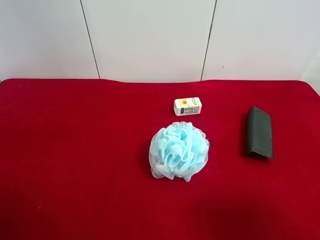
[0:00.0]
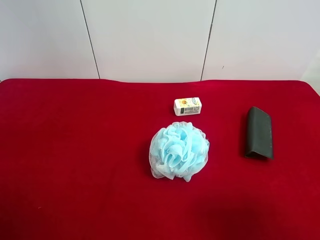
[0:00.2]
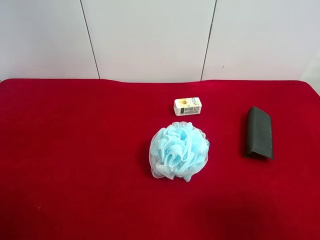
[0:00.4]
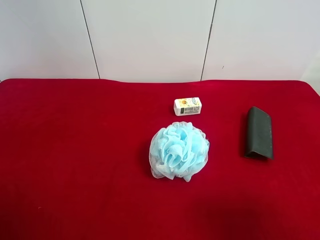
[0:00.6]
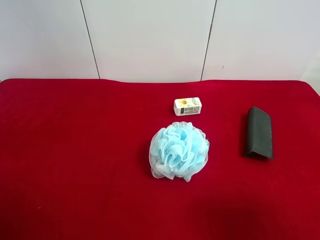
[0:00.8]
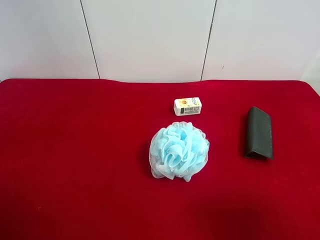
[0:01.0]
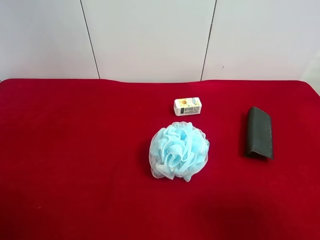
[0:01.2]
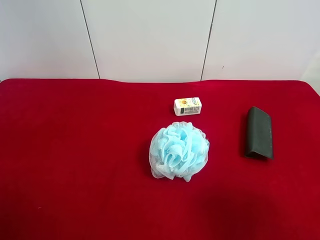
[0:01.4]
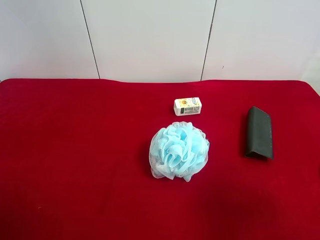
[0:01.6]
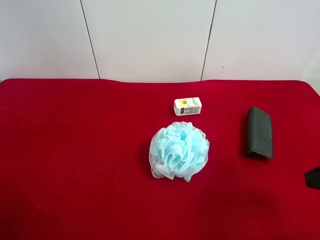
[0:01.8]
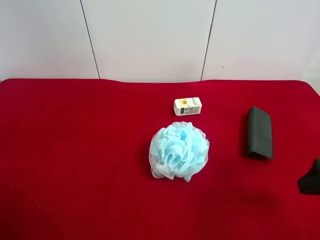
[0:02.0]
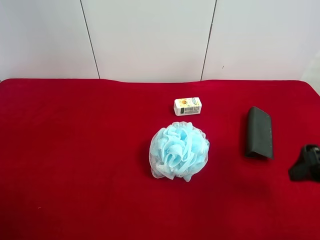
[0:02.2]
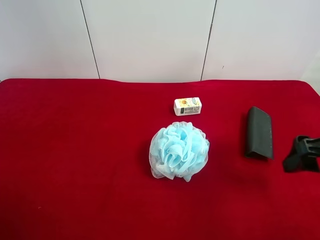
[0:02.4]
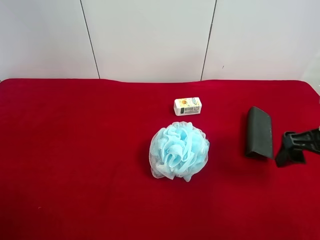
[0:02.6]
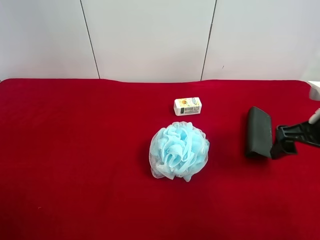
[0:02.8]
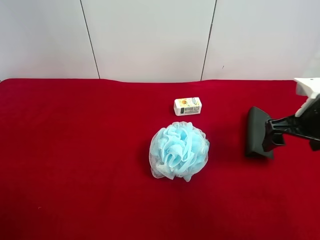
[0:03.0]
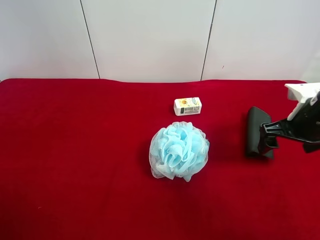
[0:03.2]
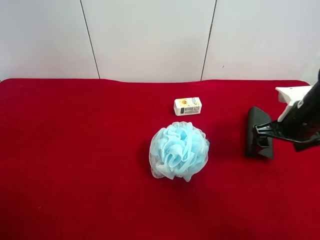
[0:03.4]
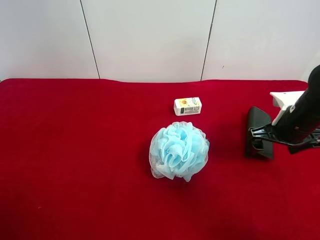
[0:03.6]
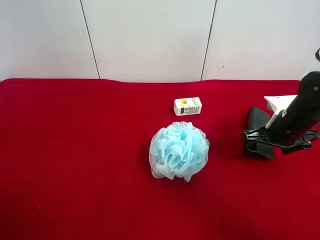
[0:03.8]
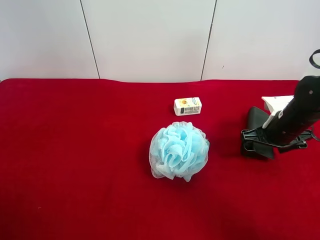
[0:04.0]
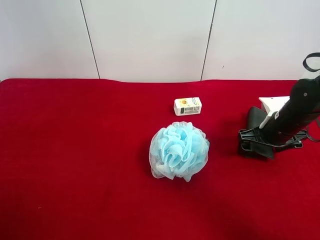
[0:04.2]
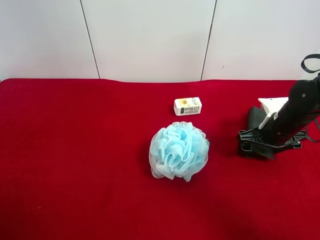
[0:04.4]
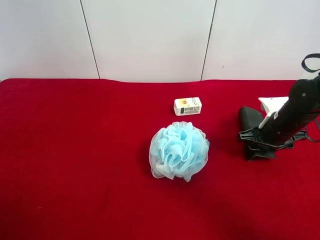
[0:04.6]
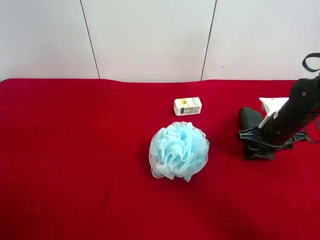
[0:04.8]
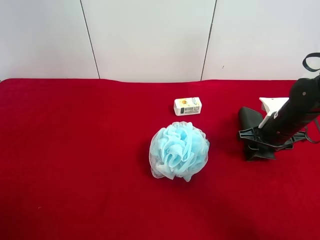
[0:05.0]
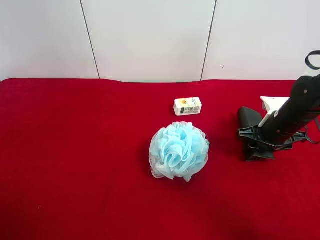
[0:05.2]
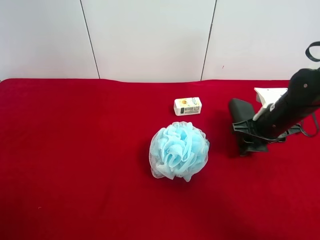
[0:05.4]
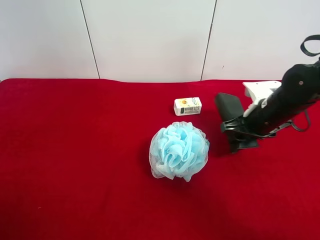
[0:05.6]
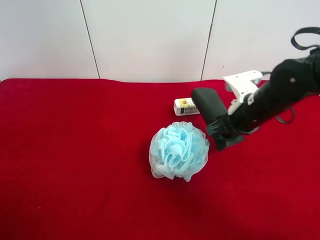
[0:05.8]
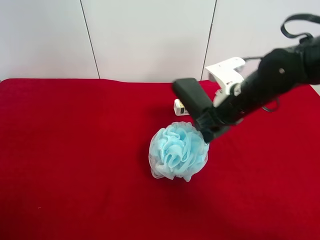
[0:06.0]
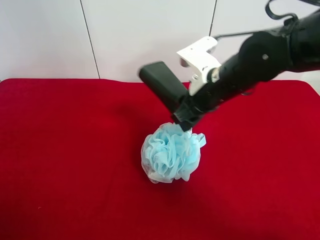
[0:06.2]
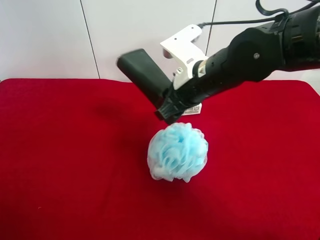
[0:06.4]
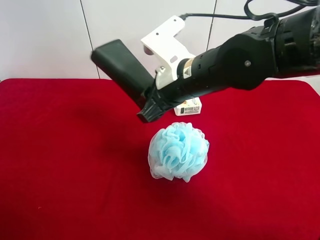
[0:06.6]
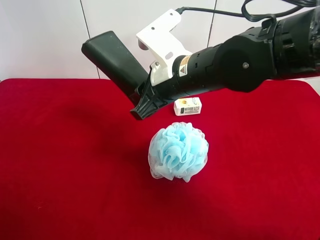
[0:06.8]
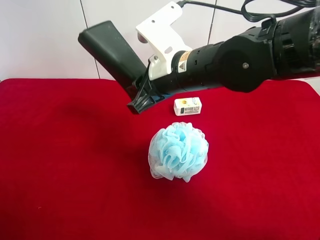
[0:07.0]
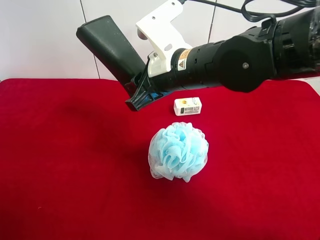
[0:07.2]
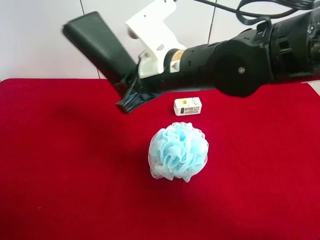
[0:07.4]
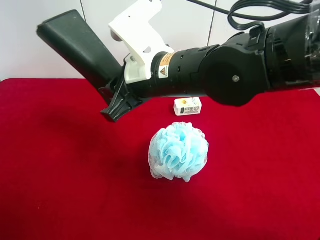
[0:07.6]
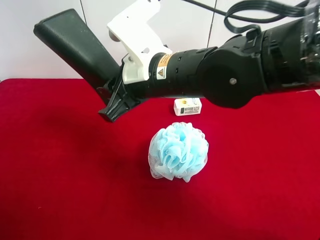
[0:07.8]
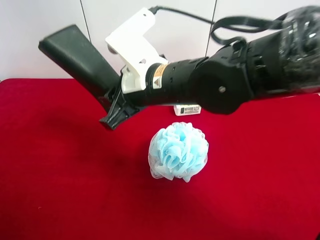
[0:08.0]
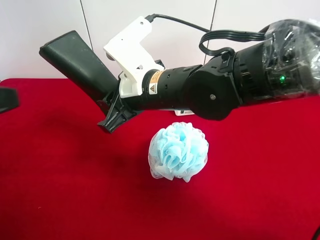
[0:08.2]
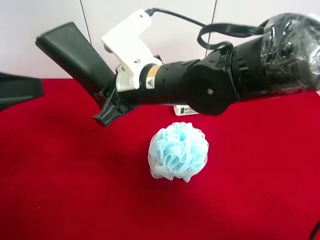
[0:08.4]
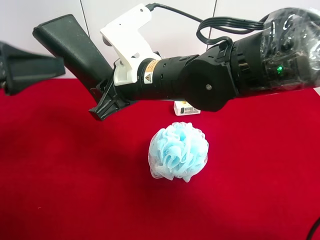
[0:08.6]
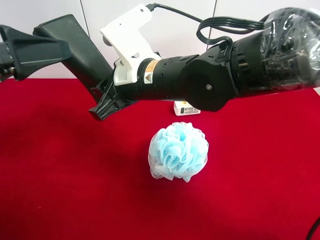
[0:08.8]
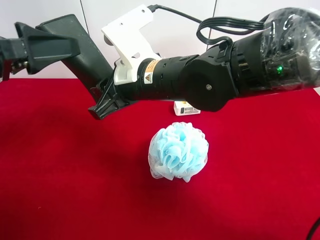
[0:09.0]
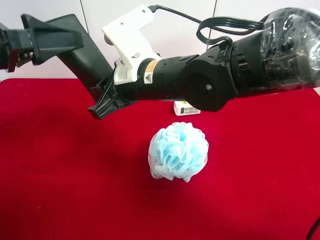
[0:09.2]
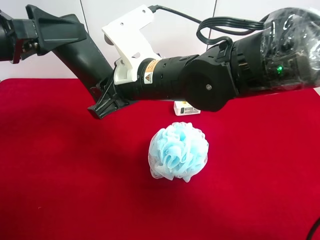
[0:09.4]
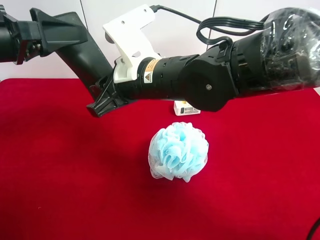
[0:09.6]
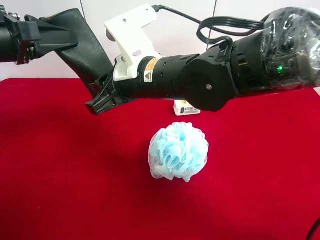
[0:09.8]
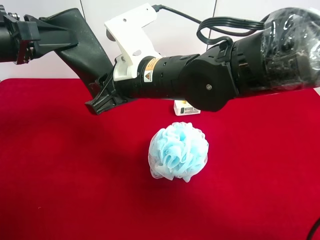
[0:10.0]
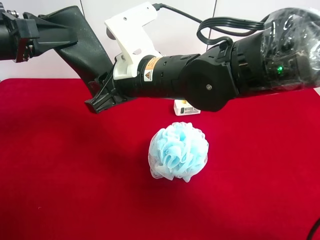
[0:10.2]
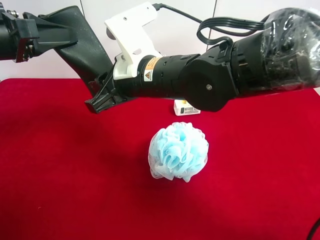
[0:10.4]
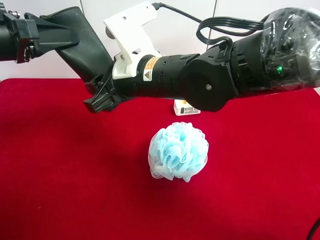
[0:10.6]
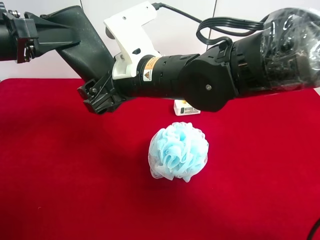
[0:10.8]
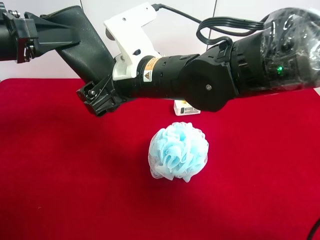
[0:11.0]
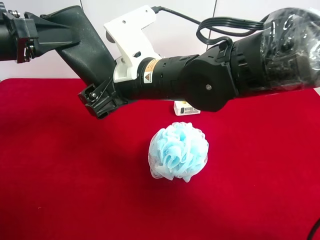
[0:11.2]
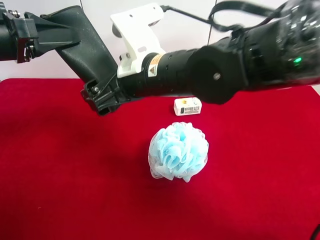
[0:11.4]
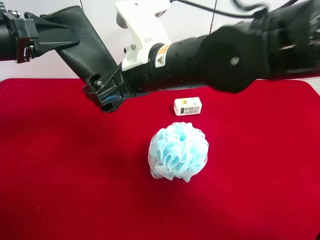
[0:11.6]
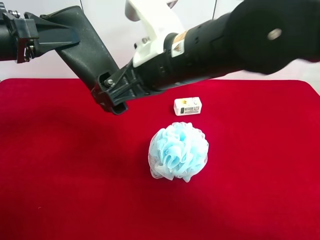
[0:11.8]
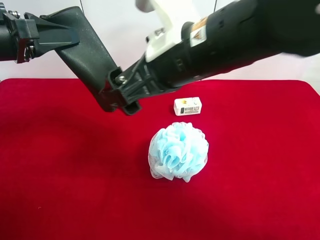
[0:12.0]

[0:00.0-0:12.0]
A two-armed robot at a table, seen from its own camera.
Task of the whole recording: use the right gripper to pick up the item and transfer it from the right gripper to the left gripper.
Step, 0:00.0 to 0:04.6: Use the right gripper to grab the eyeglass case on the right side of the table.
Step, 0:04.8 to 0:10.8: Pass the eyeglass case to the left gripper.
0:01.6 to 0:03.0: The right gripper moves forward, roughly 15 cm.
0:03.0 to 0:04.4: The right gripper travels downward and forward by about 10 cm.
0:04.4 to 0:06.0: The right gripper moves to the left and upward, approximately 15 cm, and closes its fingers.
0:06.0 to 0:07.6: The right gripper heads to the left and upward, covering approximately 15 cm.
0:07.6 to 0:09.0: The left gripper moves forward, approximately 20 cm.
0:09.0 to 0:10.4: The left gripper closes its fingers.
0:10.4 to 0:12.0: The right gripper shifts roughly 10 cm upward, to the right and backward, and opens up.

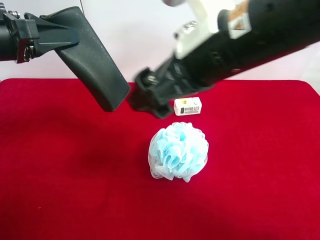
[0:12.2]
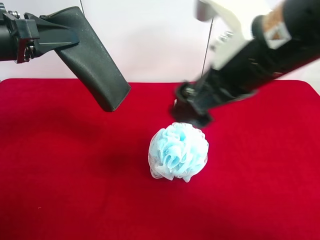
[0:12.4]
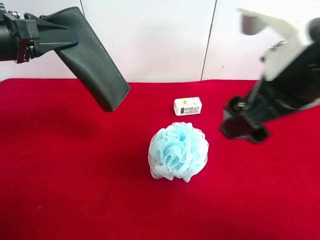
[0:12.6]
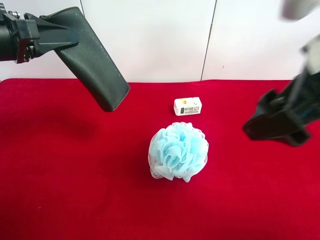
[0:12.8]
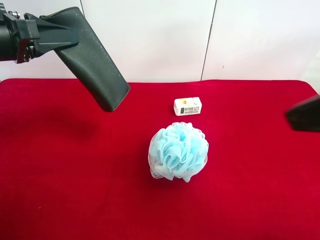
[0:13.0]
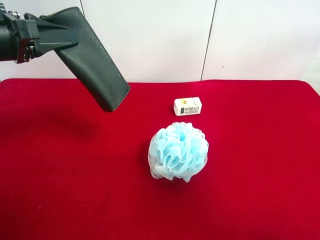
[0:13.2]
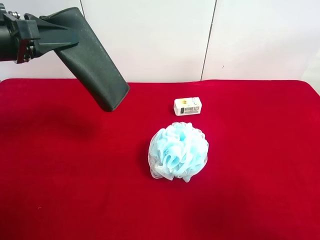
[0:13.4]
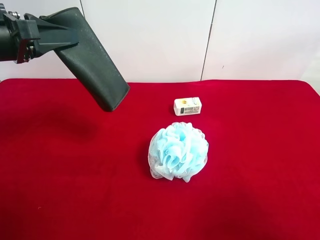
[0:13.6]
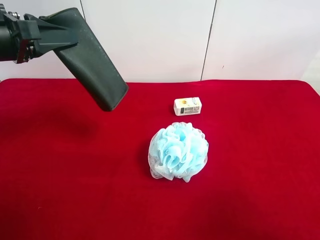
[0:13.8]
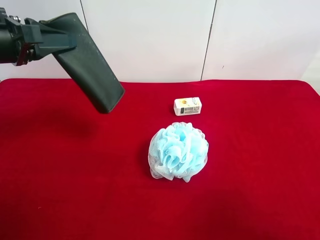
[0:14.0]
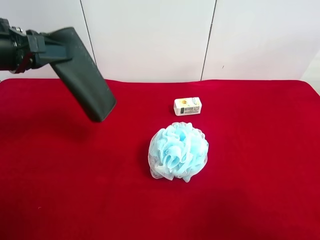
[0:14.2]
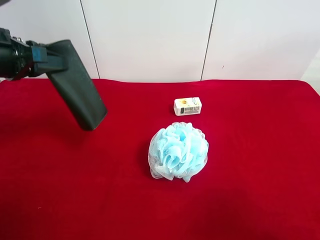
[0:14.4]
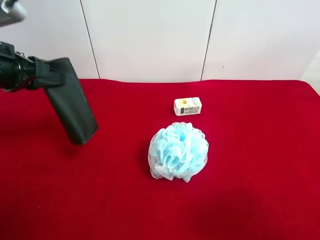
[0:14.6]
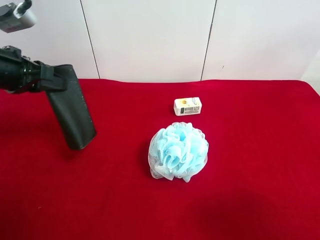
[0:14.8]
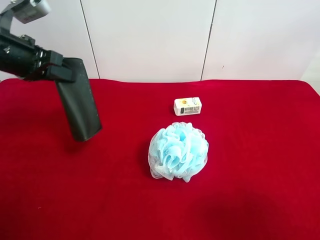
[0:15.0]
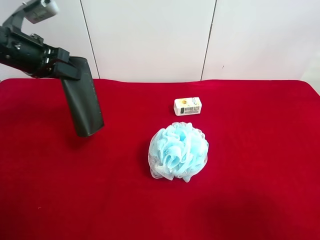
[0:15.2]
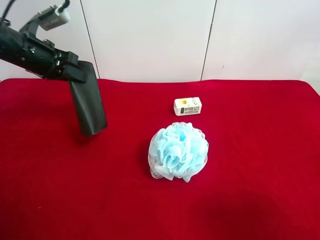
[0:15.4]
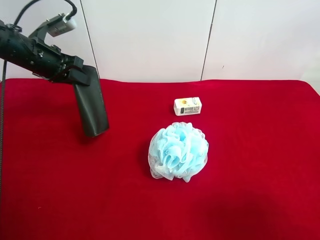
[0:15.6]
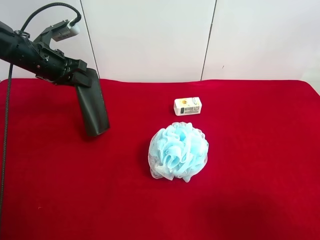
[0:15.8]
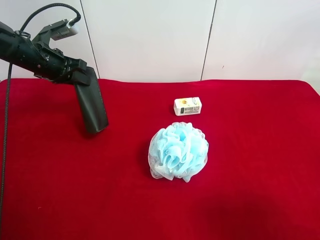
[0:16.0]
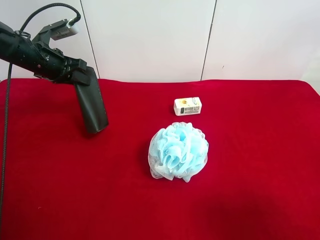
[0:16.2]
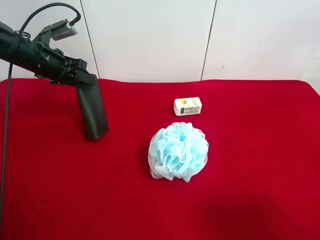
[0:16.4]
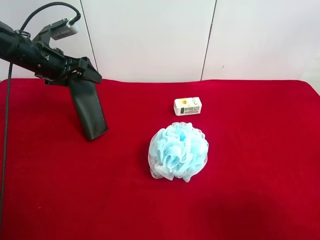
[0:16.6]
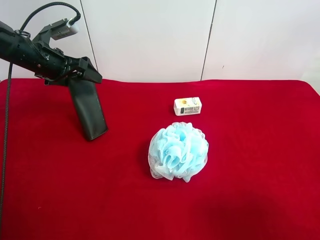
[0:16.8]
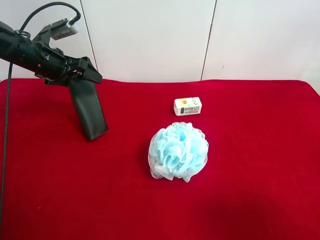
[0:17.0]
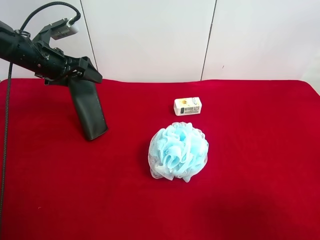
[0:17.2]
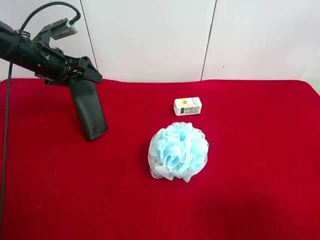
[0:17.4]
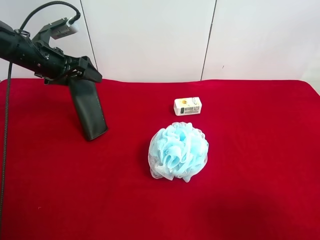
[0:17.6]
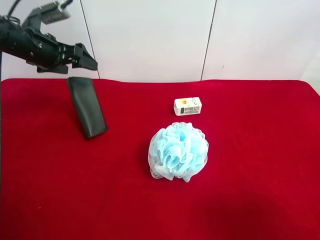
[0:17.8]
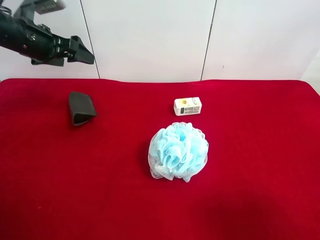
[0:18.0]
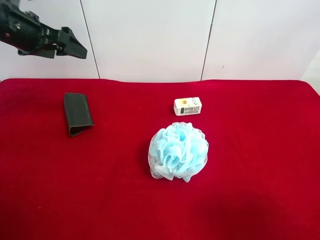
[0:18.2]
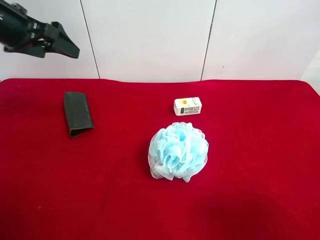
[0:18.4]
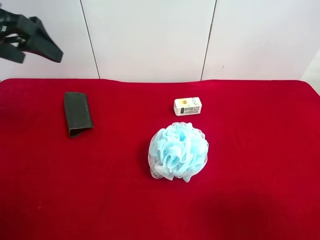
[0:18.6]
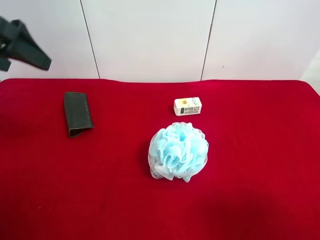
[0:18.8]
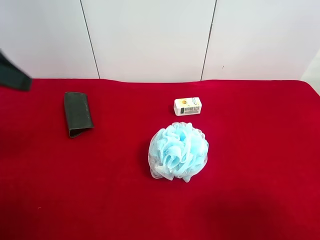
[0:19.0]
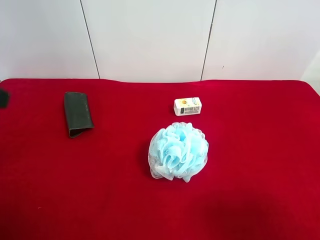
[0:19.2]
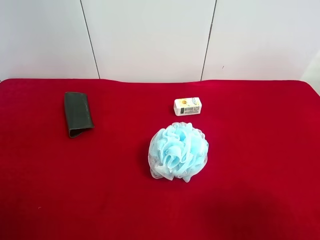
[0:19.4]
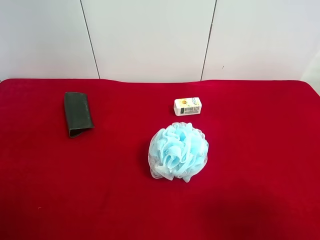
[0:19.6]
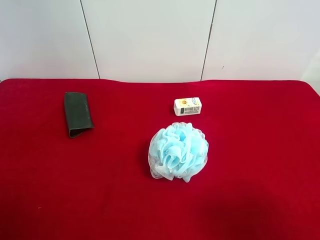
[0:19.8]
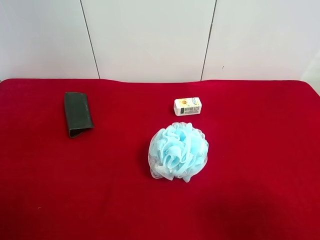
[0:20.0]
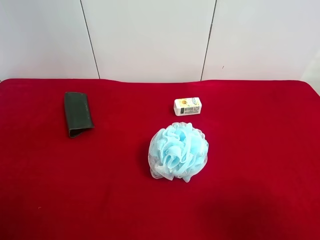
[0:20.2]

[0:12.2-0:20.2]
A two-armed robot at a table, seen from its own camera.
Task of the whole recording: use the right gripper to pick up the item and transfer it from the right gripper to the left gripper.
Step, 0:12.2 to 0:18.0: The left gripper places eyeglass case on the left side of the table.
0:12.2 to 0:13.8: The right gripper heads to the right and backward, covering roughly 30 cm.
0:13.8 to 0:15.4: The left gripper heads forward and downward, covering roughly 15 cm.
0:15.4 to 0:17.0: The left gripper opens its fingers.
0:17.0 to 0:18.6: The left gripper heads upward and backward, covering about 15 cm.
0:18.6 to 0:20.2: The left gripper heads backward, covering about 25 cm.
